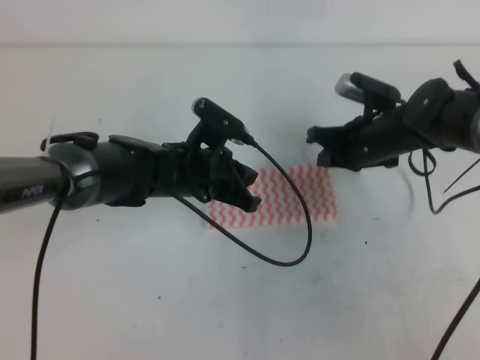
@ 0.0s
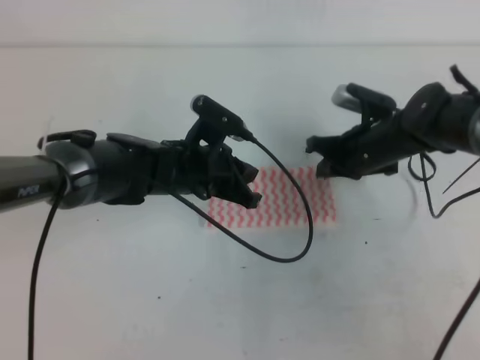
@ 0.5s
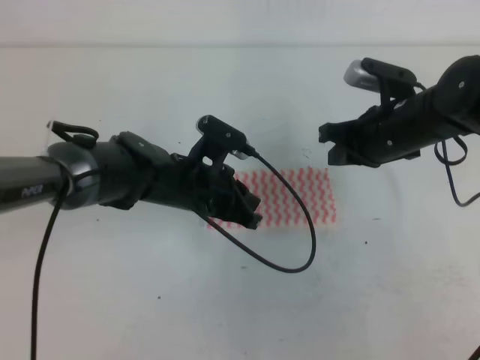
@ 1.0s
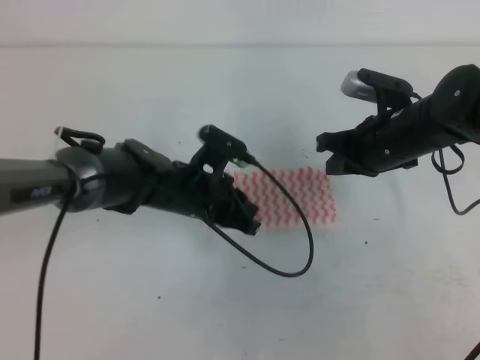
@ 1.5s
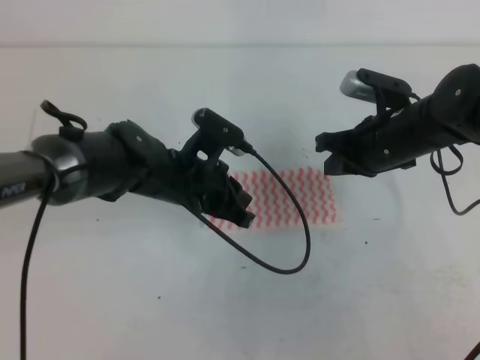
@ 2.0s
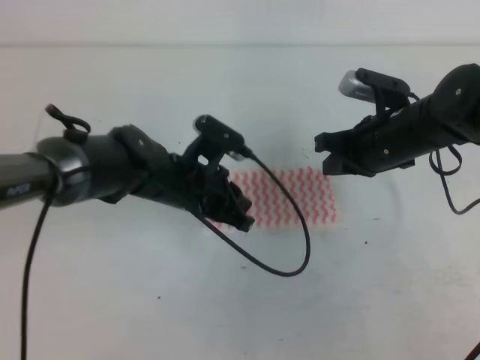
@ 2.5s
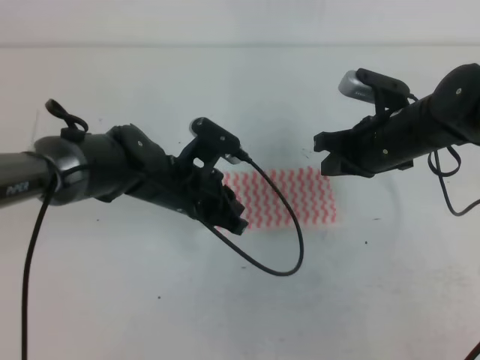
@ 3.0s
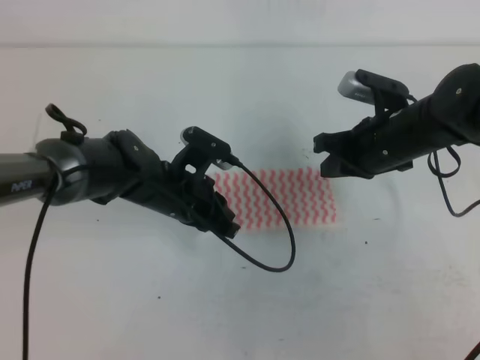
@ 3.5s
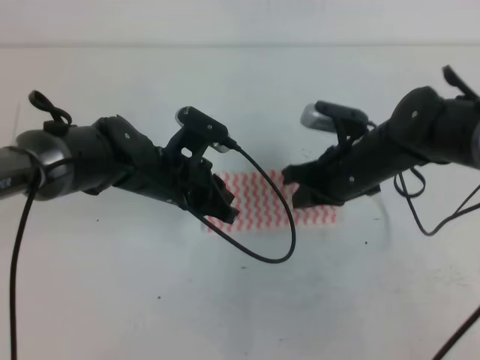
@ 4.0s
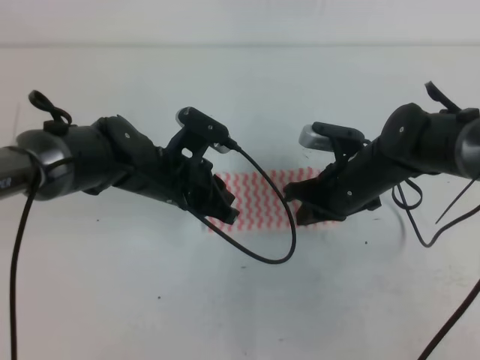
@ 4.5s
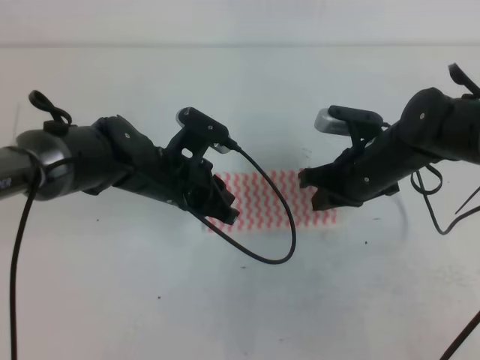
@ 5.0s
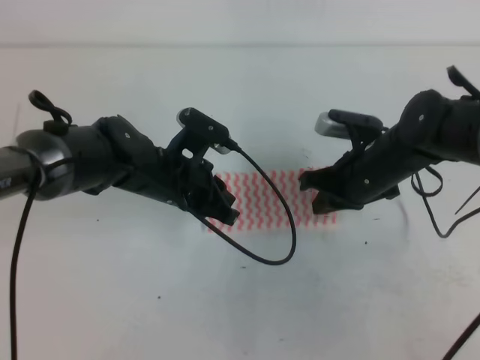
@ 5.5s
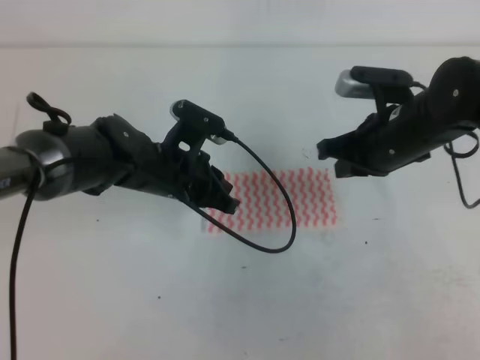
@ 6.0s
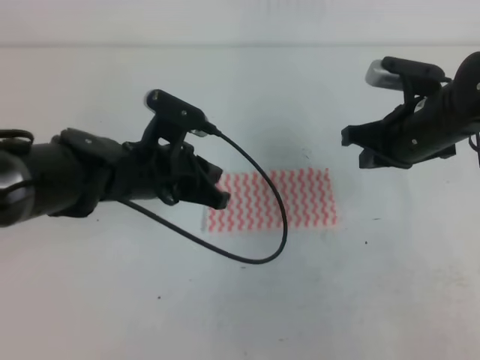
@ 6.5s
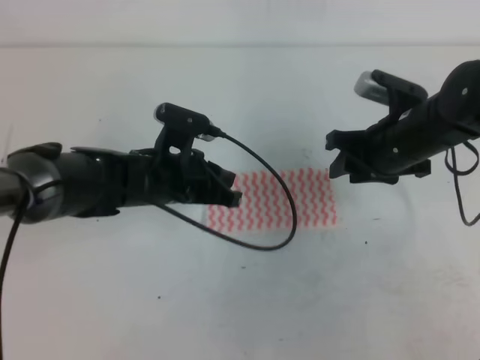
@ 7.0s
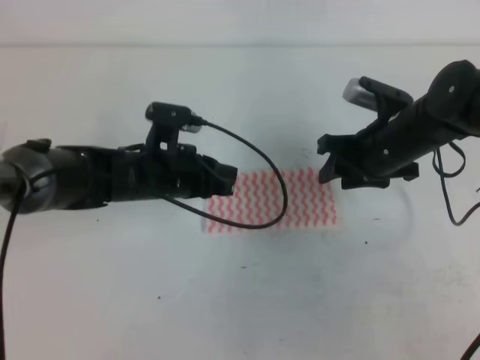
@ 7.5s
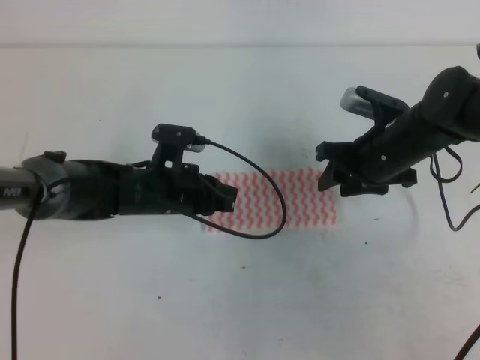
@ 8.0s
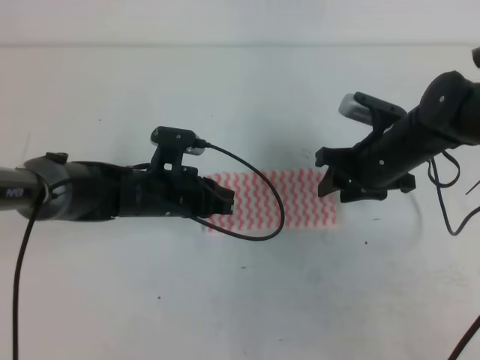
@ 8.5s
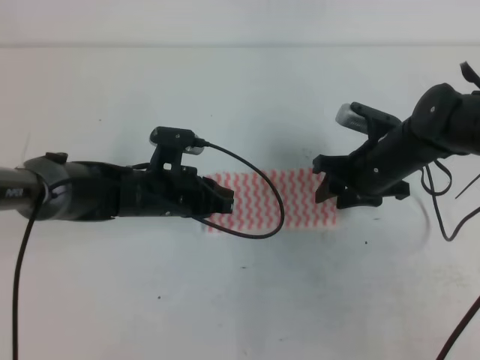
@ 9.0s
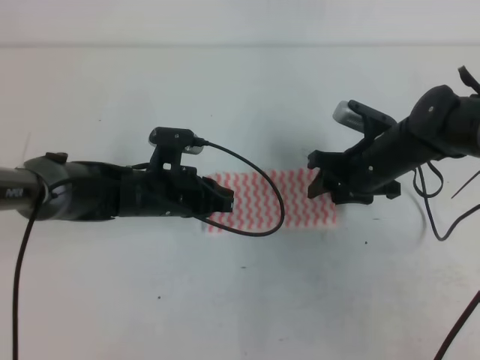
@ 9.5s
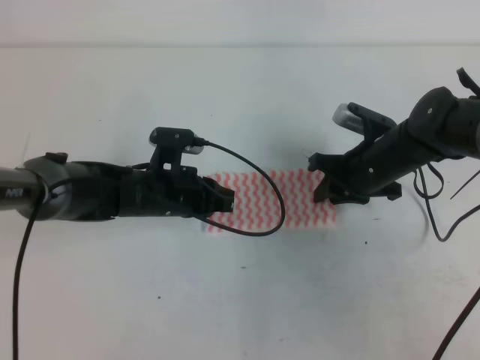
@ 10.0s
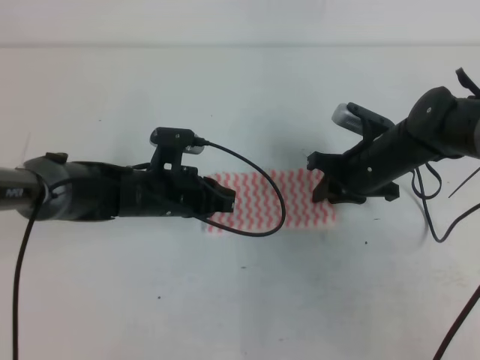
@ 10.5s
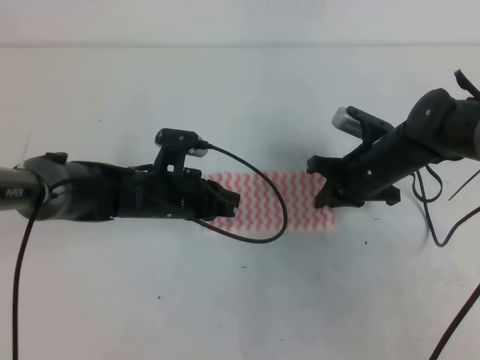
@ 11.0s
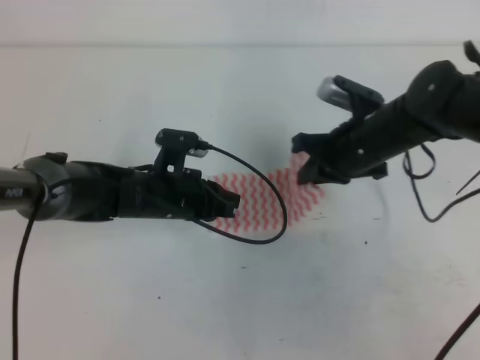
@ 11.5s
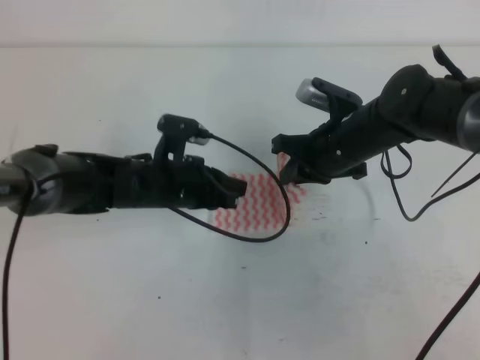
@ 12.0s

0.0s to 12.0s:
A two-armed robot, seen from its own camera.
0.0s to 2.0s: The right gripper changes place by some 5 cm.
2.0s to 4.0s: There are only small adjustments of the grippers.
4.0s to 6.0s: The right gripper ends up some 5 cm from where it was.
6.0s to 8.0s: The left gripper shifts by roughly 5 cm. Meanwhile the right gripper opens.
8.0s to 10.0s: The right gripper closes.
10.0s to 12.0s: The right gripper heads upward, covering approximately 5 cm, and closes up.

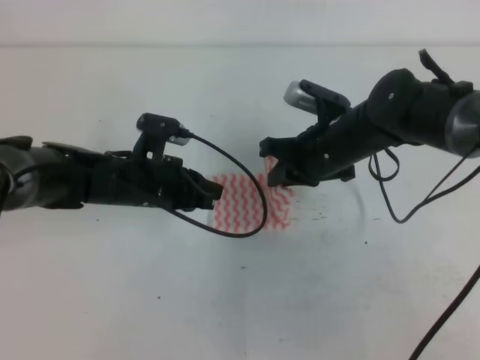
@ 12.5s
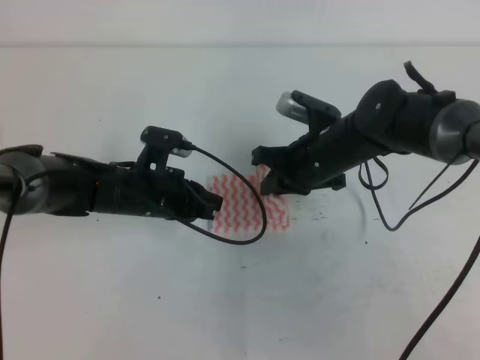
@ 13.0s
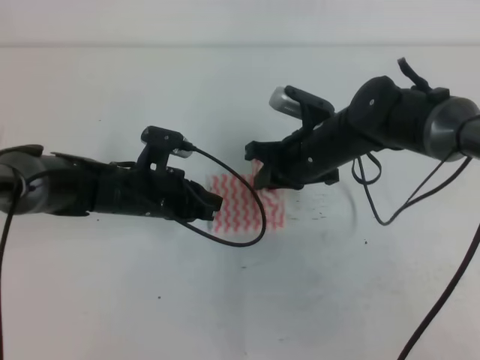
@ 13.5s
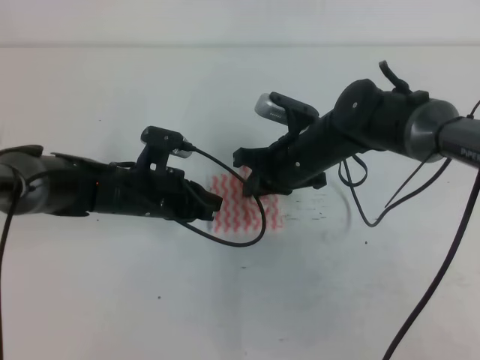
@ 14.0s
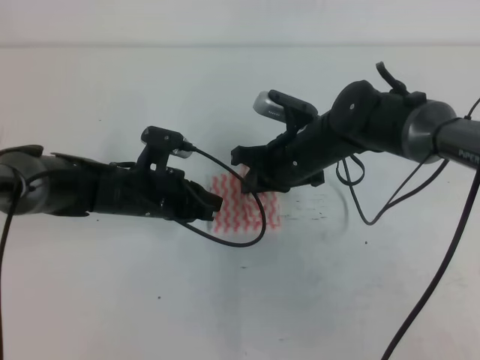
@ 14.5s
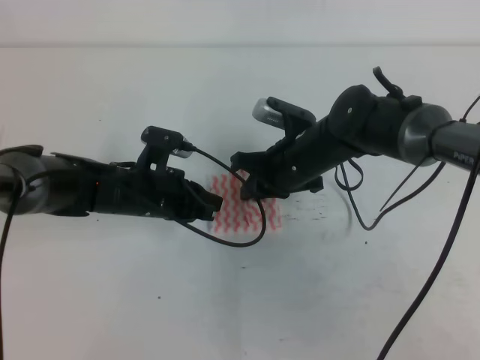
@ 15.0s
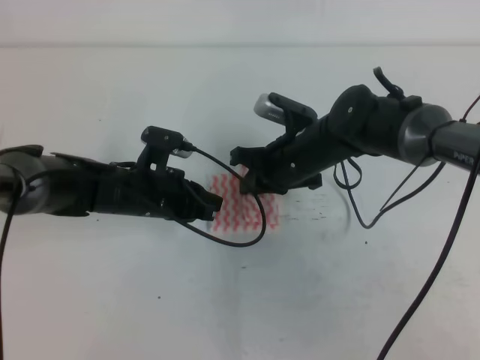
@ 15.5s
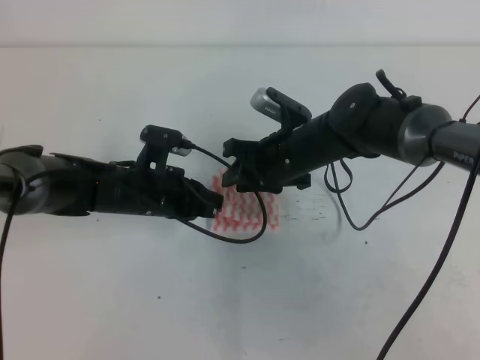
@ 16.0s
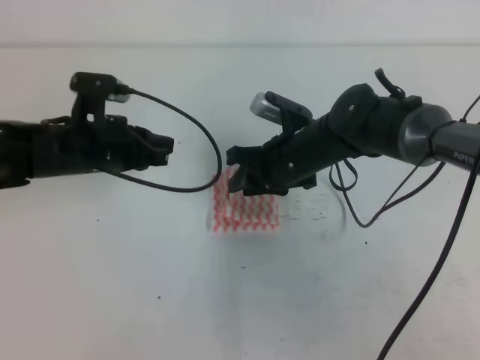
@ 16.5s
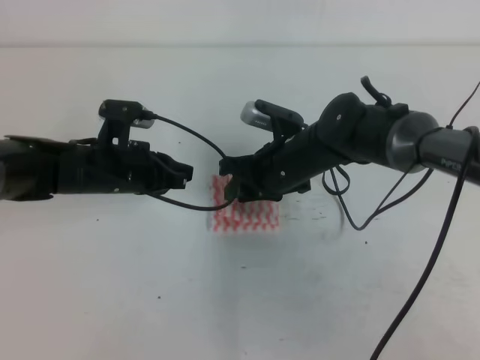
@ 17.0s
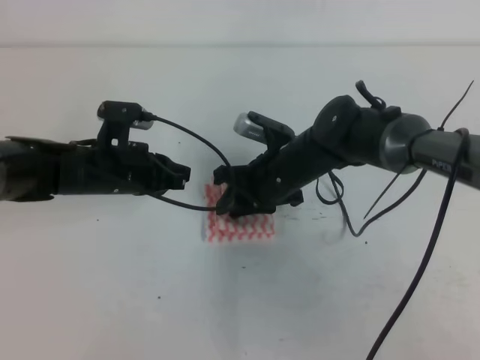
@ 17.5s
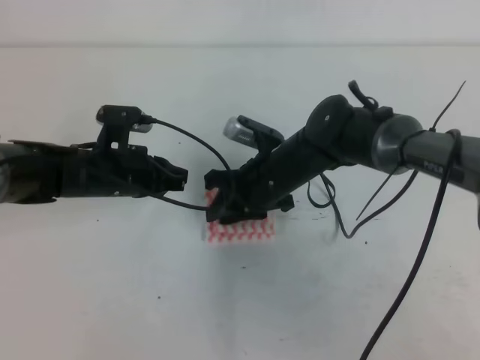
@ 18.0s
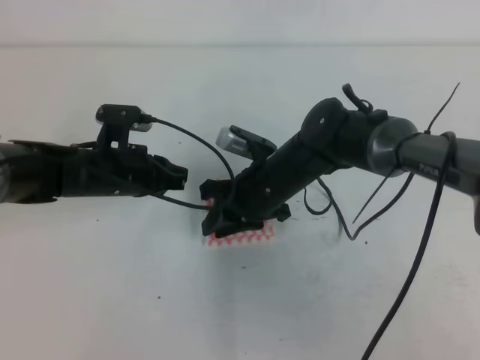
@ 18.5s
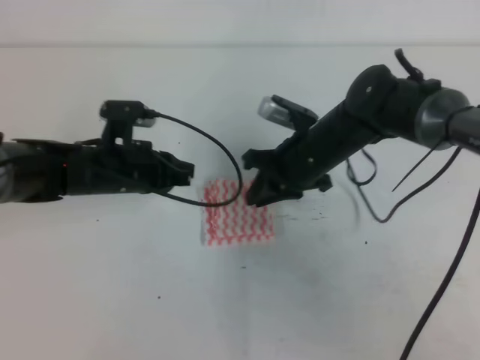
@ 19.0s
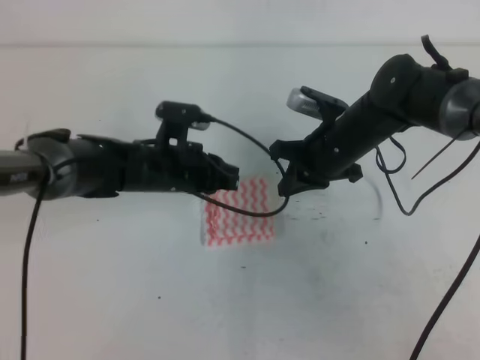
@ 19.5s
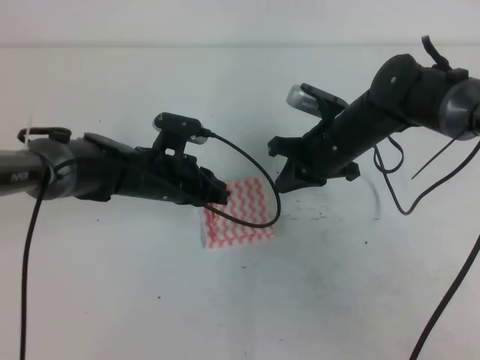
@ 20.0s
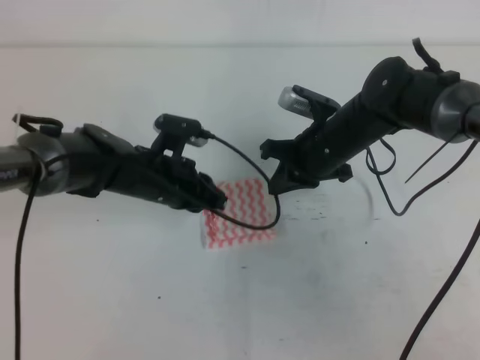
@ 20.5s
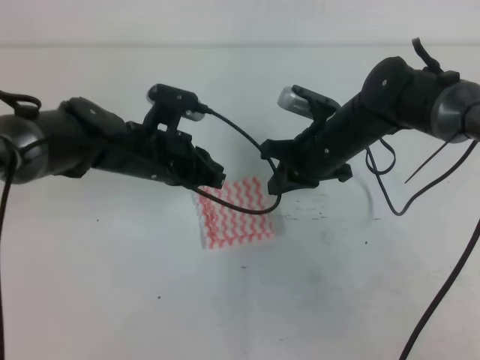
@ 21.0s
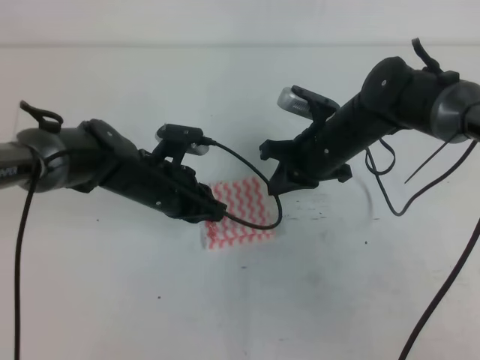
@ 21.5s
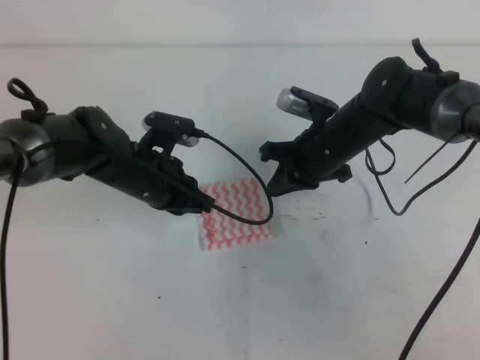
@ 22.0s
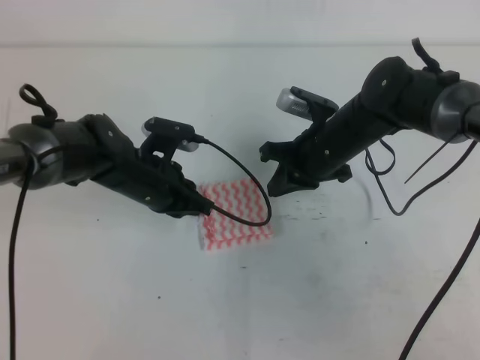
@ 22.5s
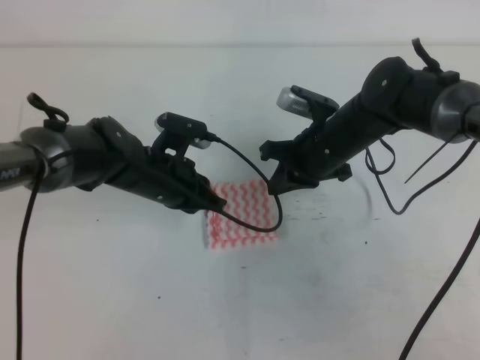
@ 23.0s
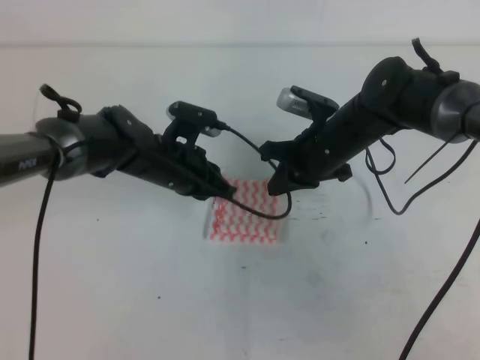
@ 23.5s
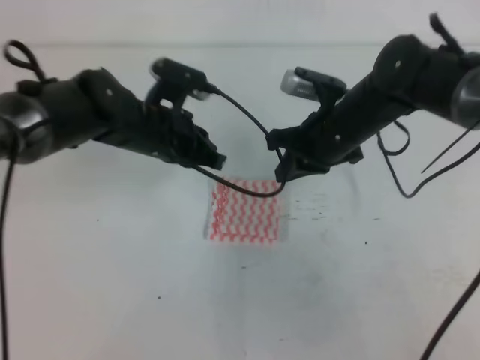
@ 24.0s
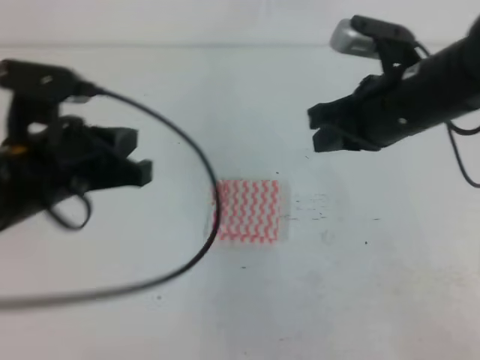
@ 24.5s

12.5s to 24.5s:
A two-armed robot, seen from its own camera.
12.5s to 14.5s: The grippers move only a little.
14.5s to 16.5s: The right gripper opens up, while the left gripper heads upward, covering about 5 cm.
18.5s to 20.5s: The grippers both shift to the right by roughly 5 cm. The right gripper closes its fingers.
20.5s to 22.5s: The grippers make only small movements.
22.5s to 24.5s: The grippers both shift upward and backward by roughly 15 cm.

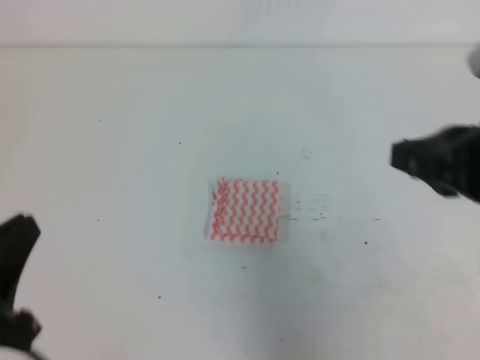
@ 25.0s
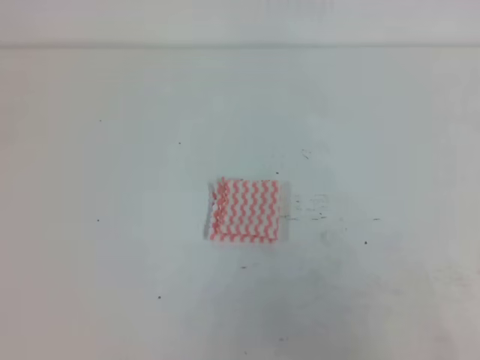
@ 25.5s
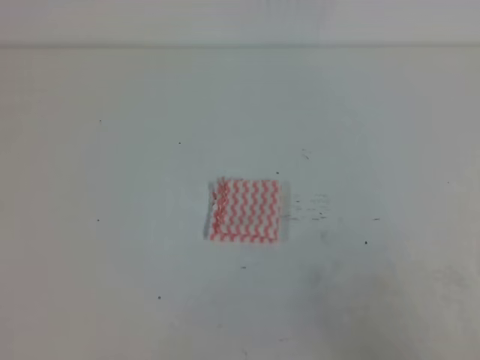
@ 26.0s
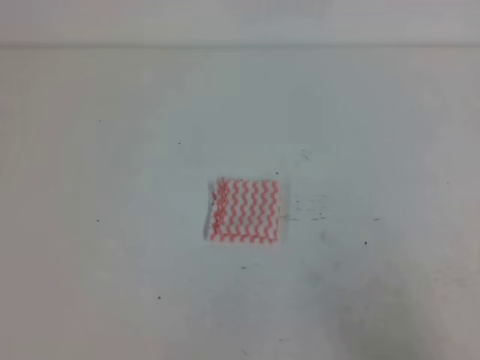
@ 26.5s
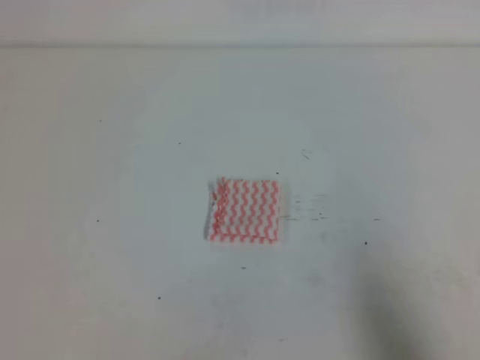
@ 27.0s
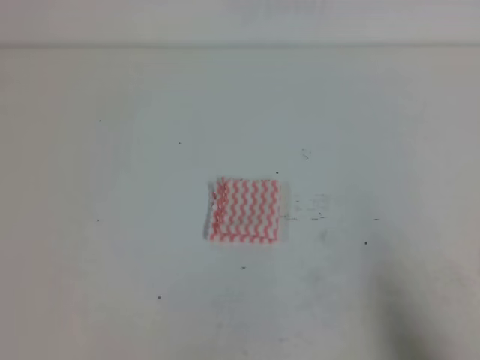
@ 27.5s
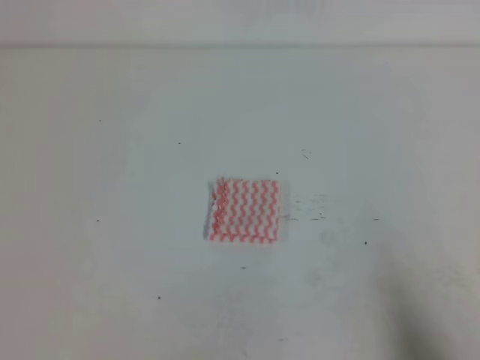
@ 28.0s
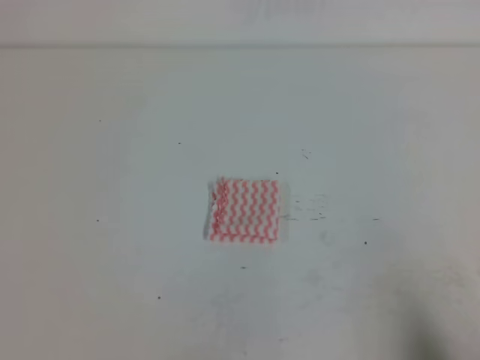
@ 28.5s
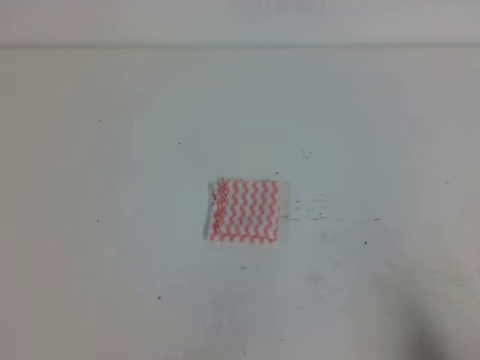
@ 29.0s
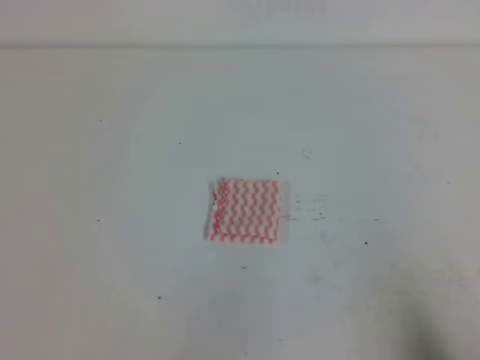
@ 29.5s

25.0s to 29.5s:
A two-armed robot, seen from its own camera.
25.0s to 27.0s: The left gripper heads downward, covering roughly 10 cm. The right gripper is displaced backward, downward and to the right by roughly 20 cm.
27.0s to 29.5s: The right gripper travels downward by approximately 5 cm.
